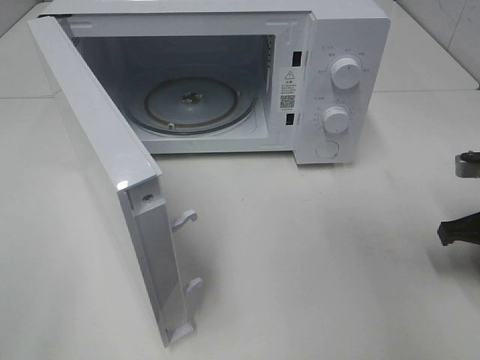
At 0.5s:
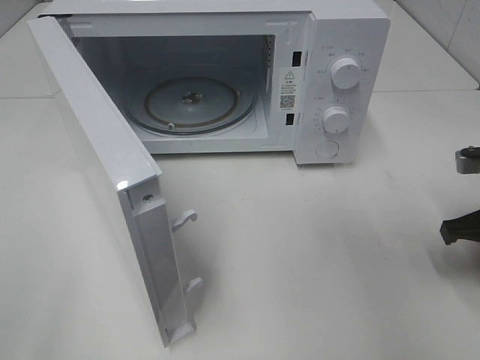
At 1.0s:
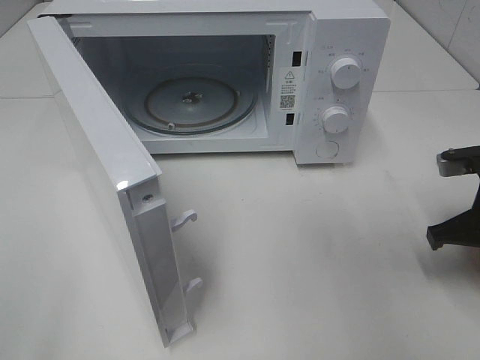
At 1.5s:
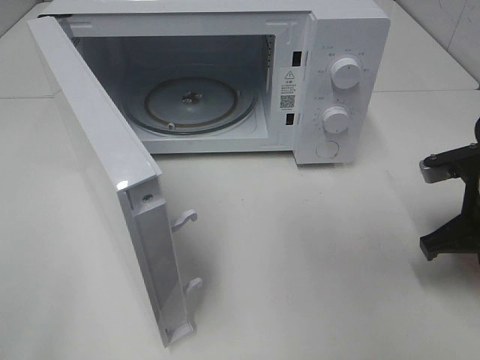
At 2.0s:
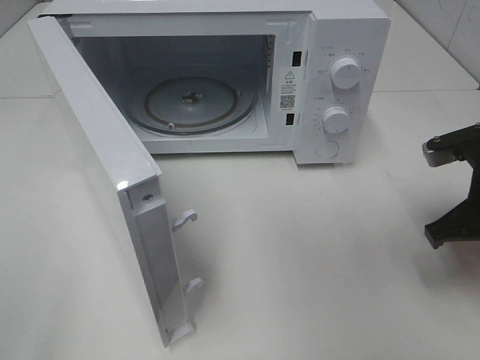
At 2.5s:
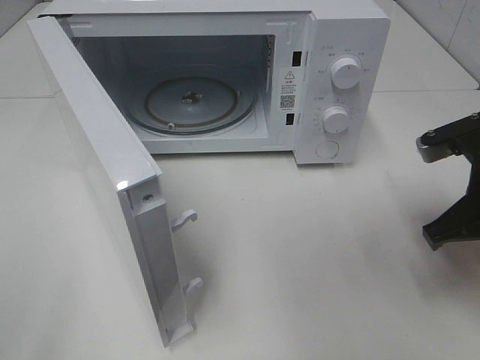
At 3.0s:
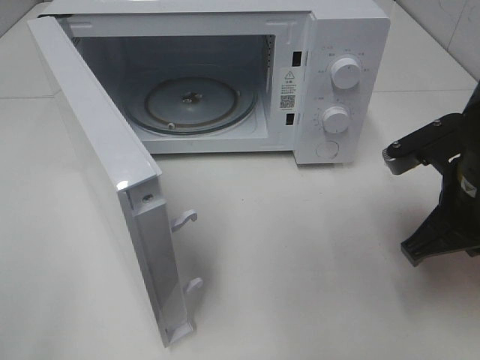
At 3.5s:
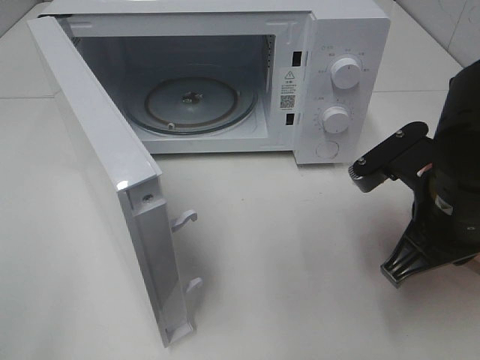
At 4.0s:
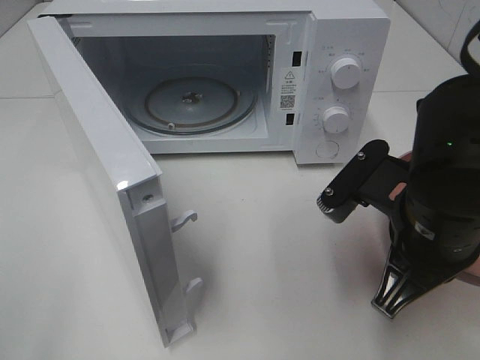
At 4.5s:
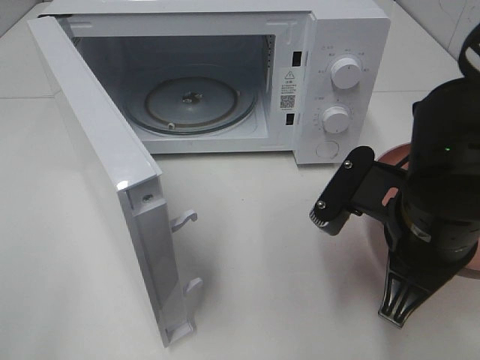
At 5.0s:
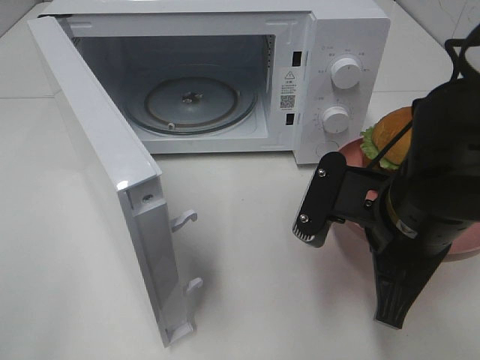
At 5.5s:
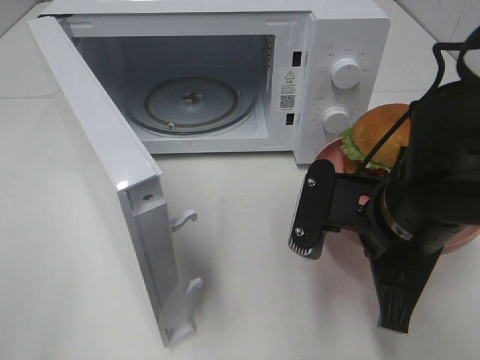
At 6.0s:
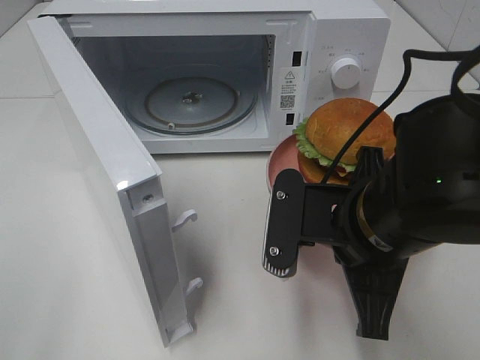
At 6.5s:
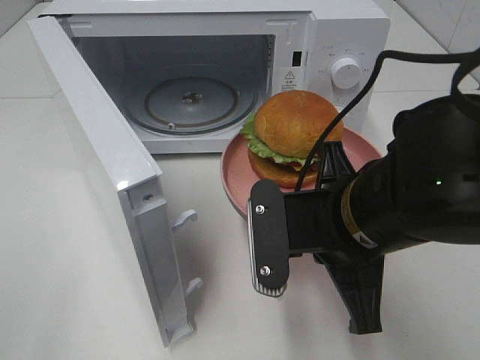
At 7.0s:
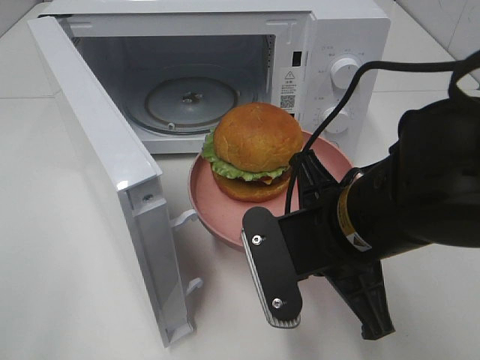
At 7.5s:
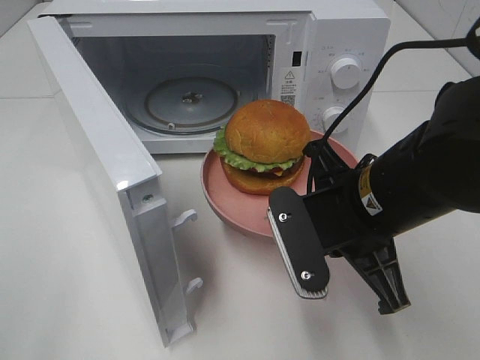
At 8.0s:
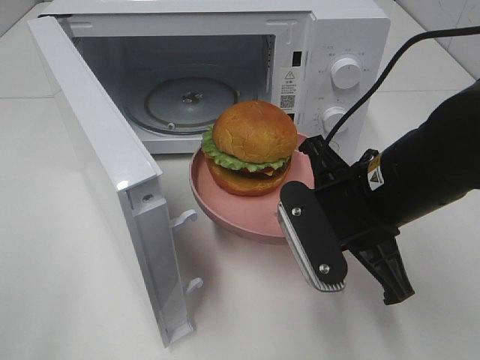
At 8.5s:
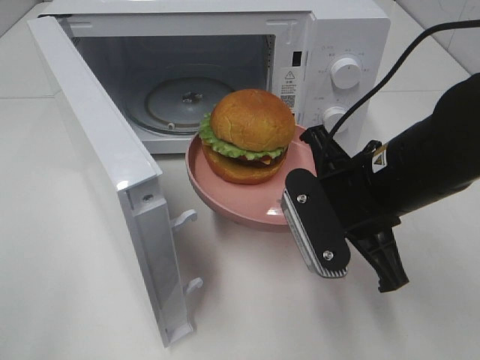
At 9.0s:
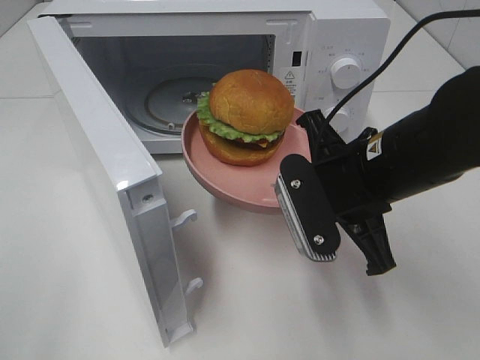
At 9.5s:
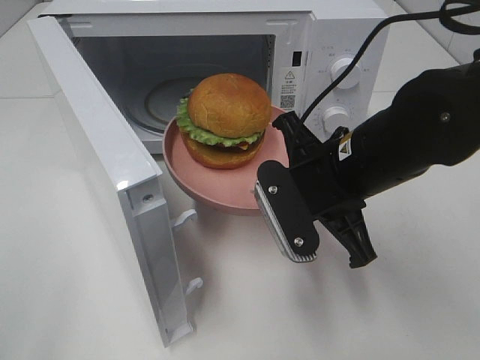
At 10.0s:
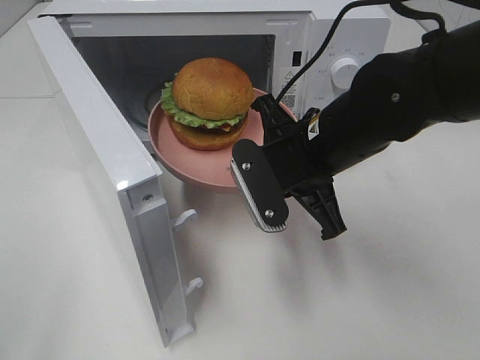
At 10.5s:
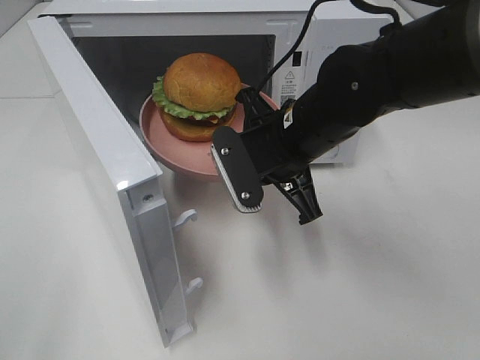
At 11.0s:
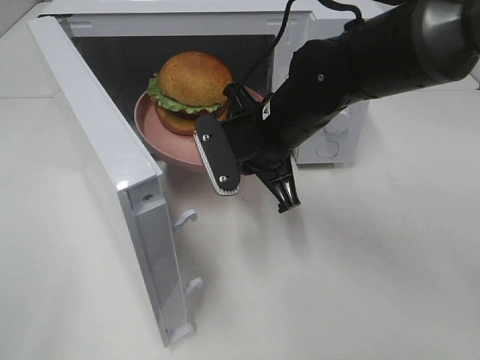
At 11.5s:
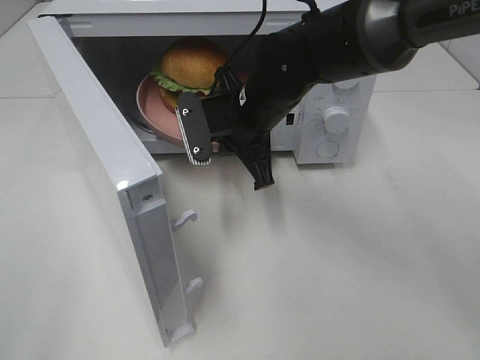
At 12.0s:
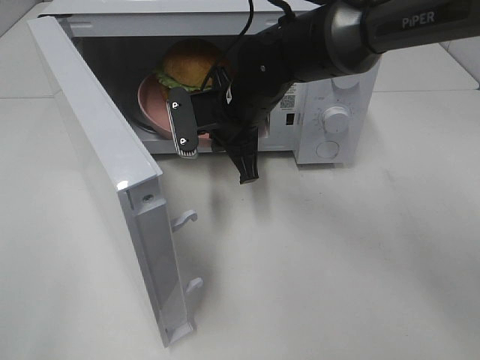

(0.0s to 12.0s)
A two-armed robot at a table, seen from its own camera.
Task of the whole recording: Heat the burger.
0.0s - 2.0s: The right gripper travels to the left by about 5 cm.
2.0s - 4.0s: The right gripper moves to the left and backward, some 10 cm.
8.0s - 10.0s: The right gripper heads forward, covering about 5 cm.
10.0s - 12.0s: The right gripper is displaced forward and to the left by about 15 cm.

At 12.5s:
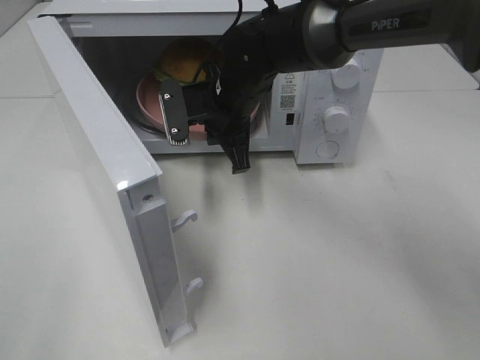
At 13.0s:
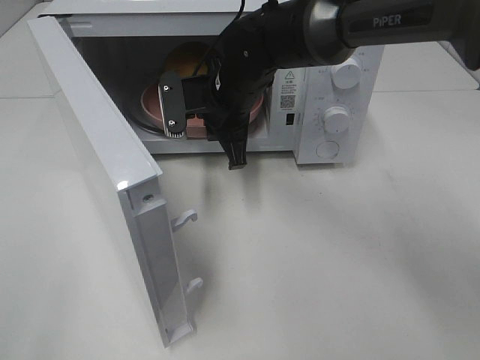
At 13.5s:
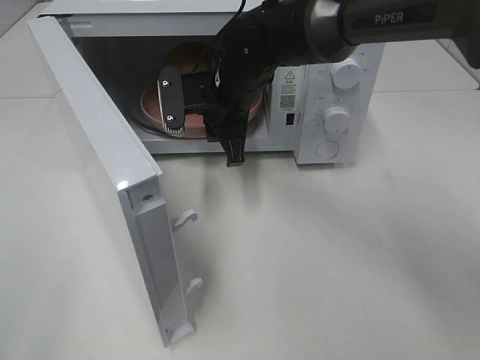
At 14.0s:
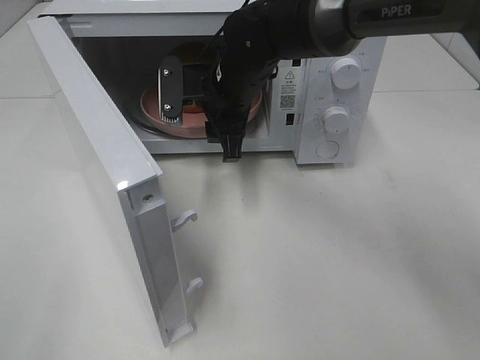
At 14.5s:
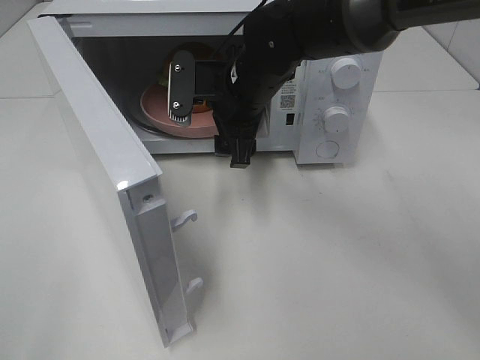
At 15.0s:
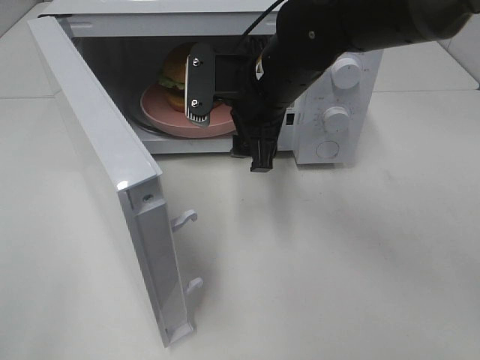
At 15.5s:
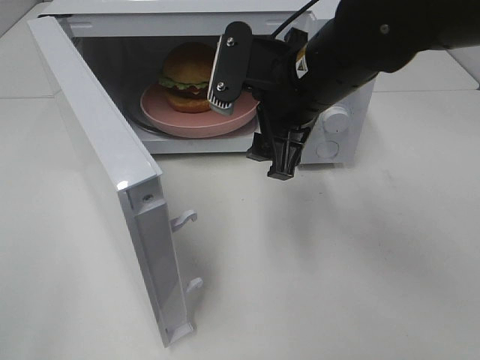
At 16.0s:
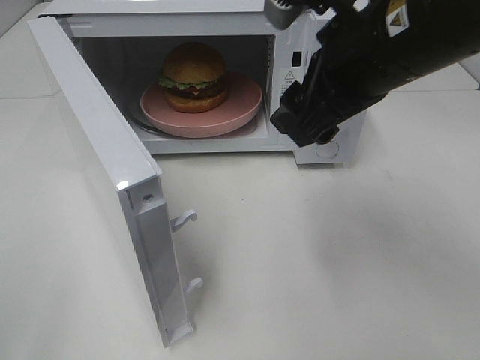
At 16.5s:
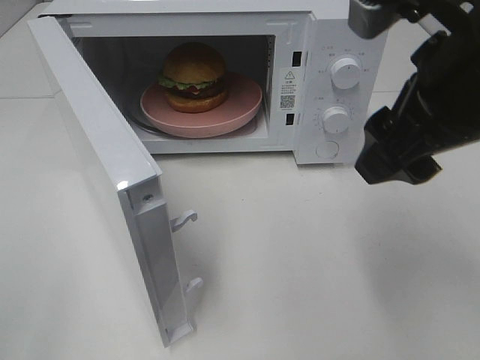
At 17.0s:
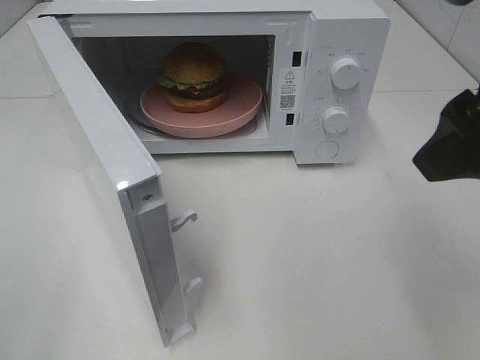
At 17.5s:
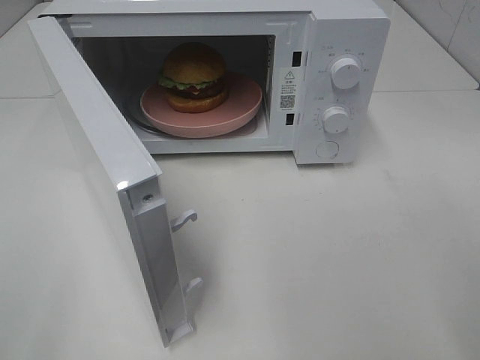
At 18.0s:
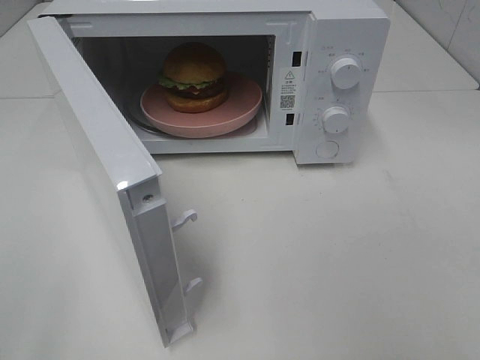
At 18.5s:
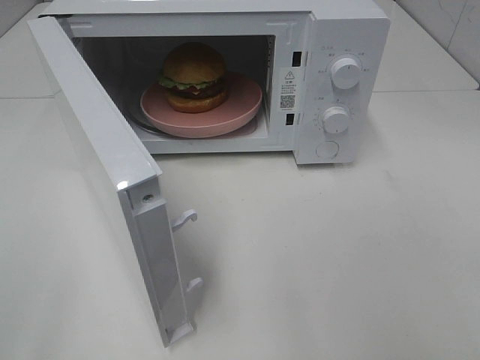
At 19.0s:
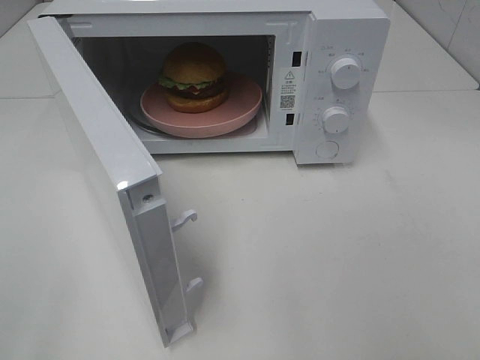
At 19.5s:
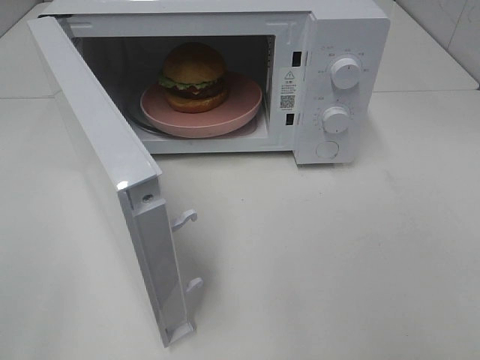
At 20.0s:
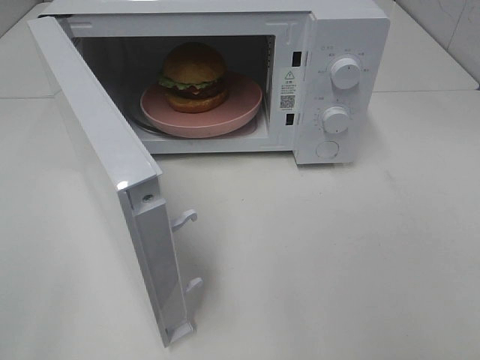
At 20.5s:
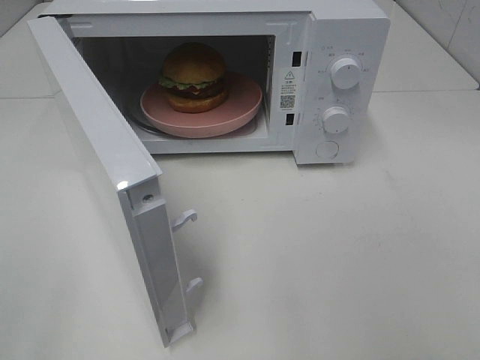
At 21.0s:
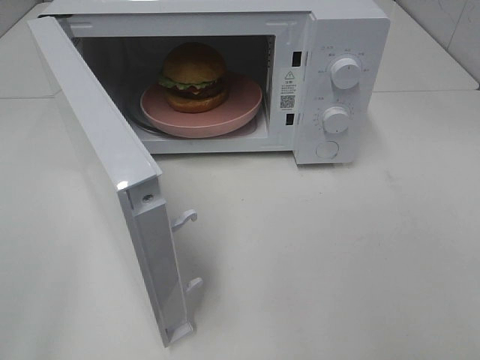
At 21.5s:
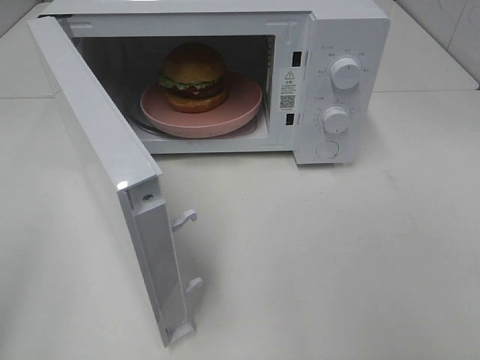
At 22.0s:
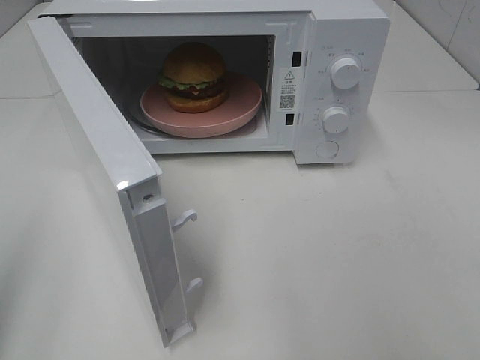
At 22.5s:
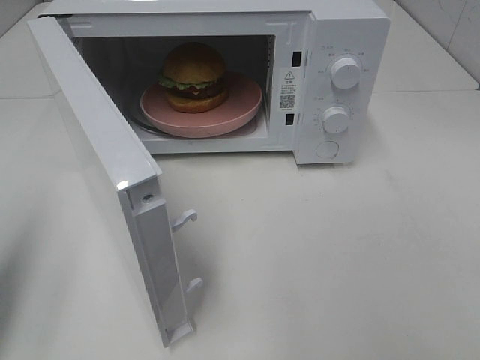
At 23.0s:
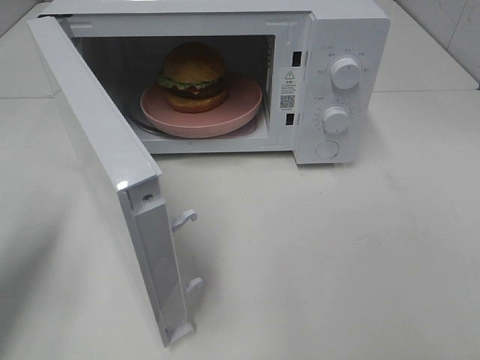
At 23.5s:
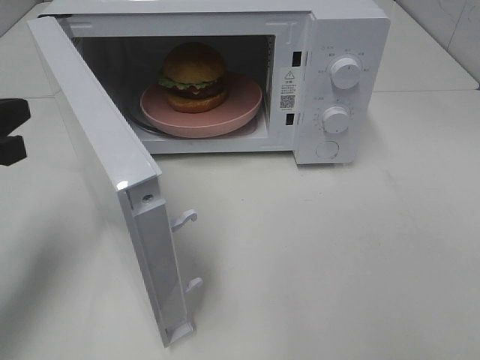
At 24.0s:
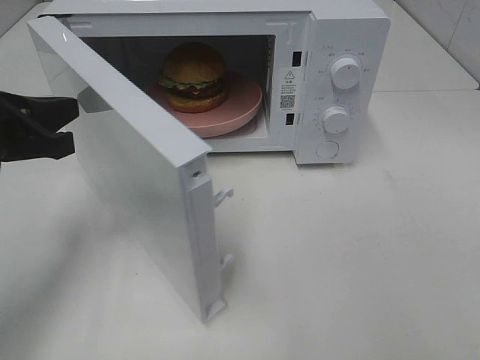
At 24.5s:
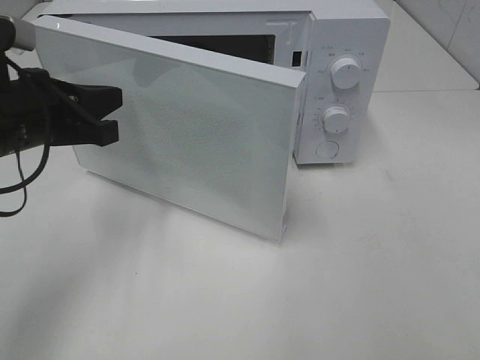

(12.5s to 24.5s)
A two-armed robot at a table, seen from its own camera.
Task of the whole recording: Heat the burger.
12.5s - 14.5s: The right gripper opens up.
14.5s - 16.5s: The right gripper travels backward, to the right and upward by some 25 cm.
16.5s - 18.5s: The right gripper is displaced backward and to the right by some 25 cm.
18.5s - 20.5s: The two grippers keep their place.
20.5s - 22.5s: The left gripper moves forward, approximately 15 cm, and closes its fingers.
22.5s - 24.5s: The left gripper is displaced forward and to the right by some 20 cm.

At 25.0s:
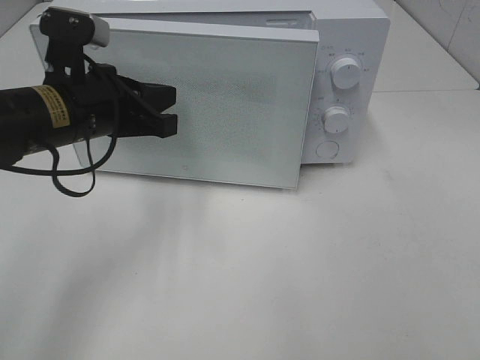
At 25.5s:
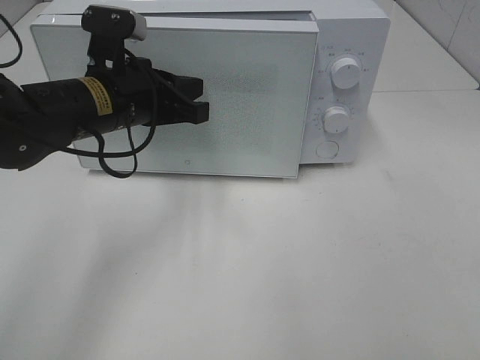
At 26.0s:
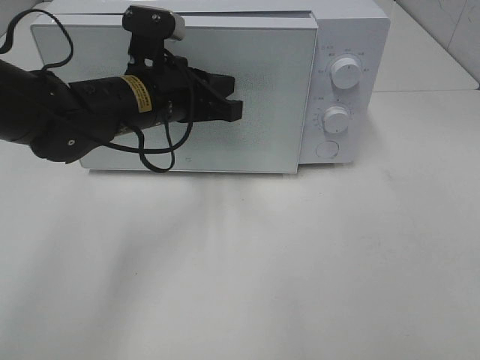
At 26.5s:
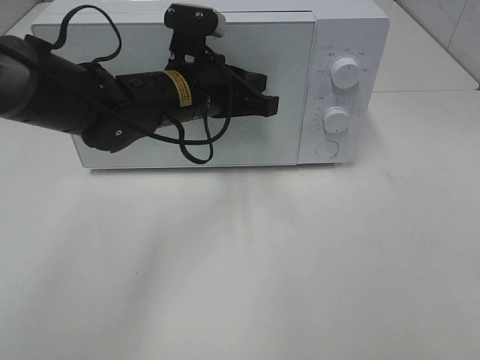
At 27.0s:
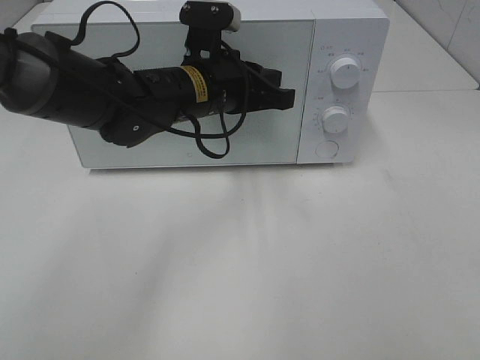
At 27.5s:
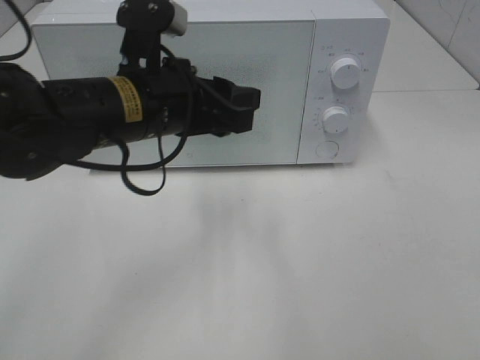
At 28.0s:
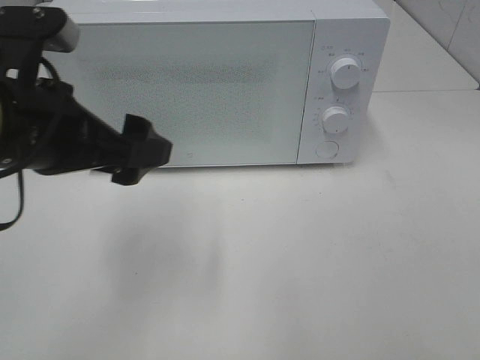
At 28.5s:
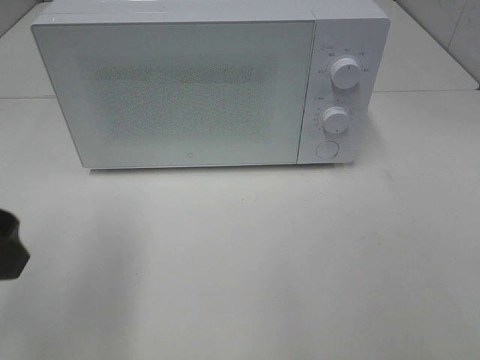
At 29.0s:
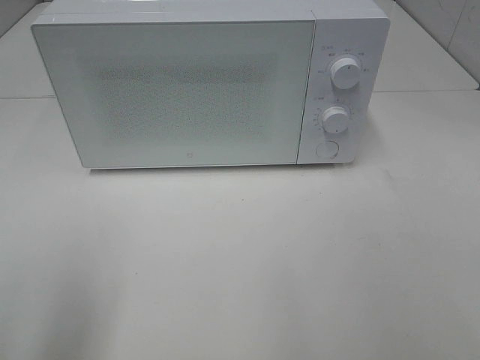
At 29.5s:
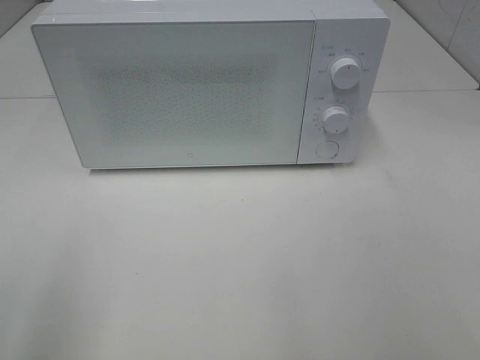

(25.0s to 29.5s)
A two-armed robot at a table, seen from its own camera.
Task of the whole recording: Heat the burger.
25.0s - 27.0s: The left gripper shifts approximately 15 cm to the right and forward.
27.0s - 29.5s: The left gripper is displaced backward and to the left by about 40 cm, and opens up.
